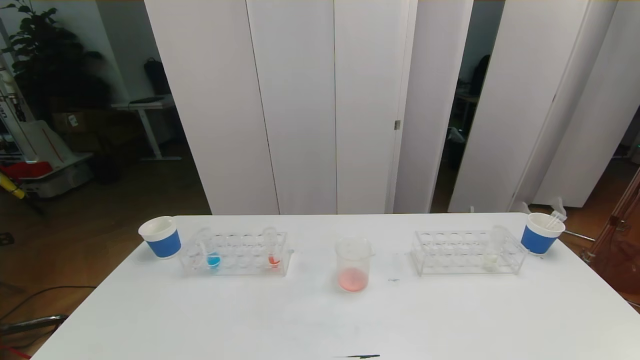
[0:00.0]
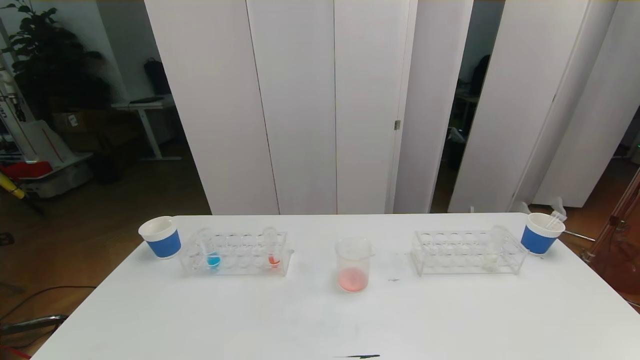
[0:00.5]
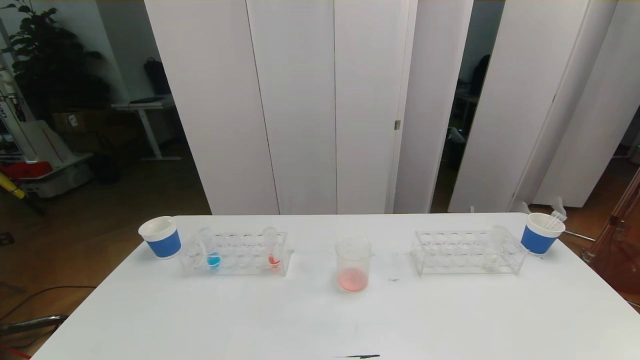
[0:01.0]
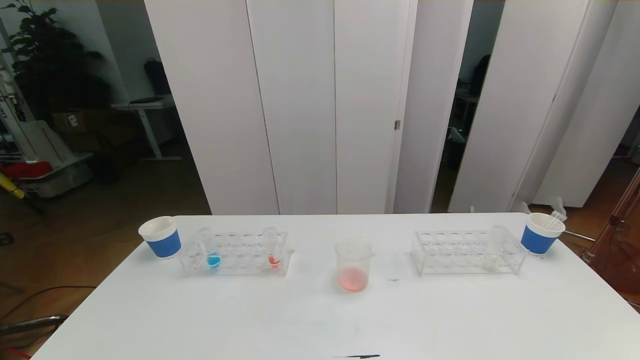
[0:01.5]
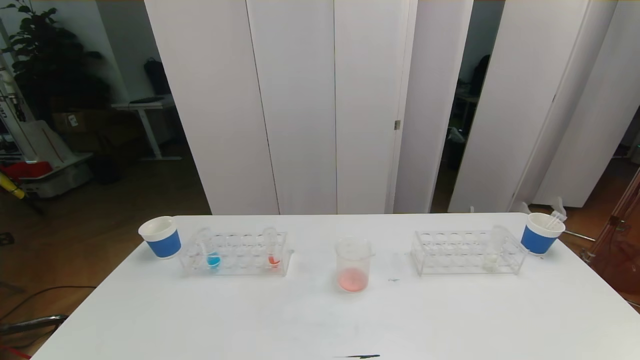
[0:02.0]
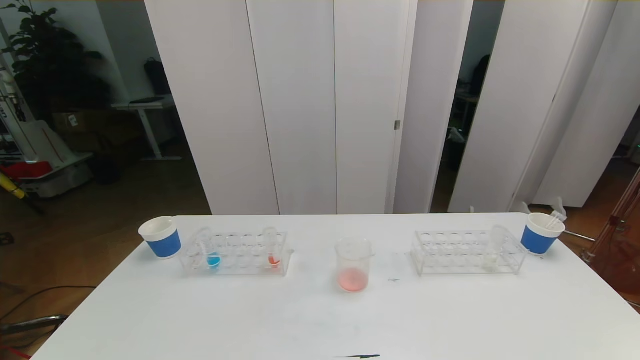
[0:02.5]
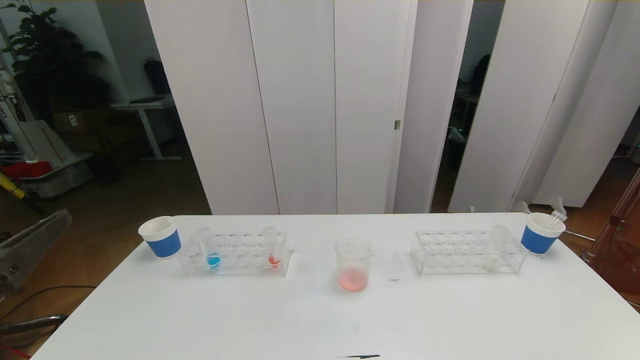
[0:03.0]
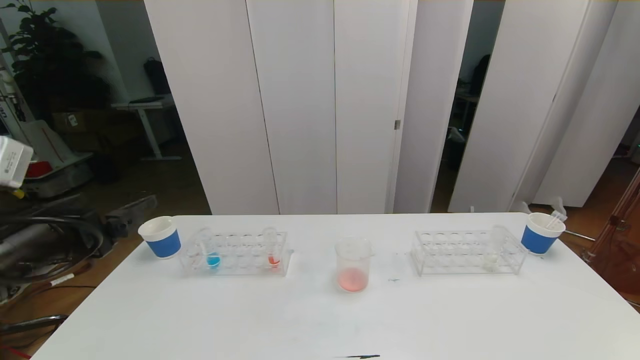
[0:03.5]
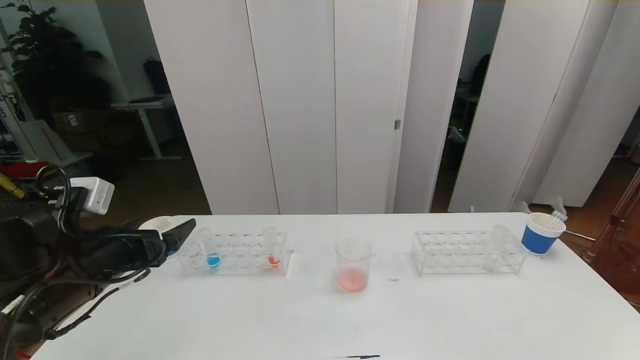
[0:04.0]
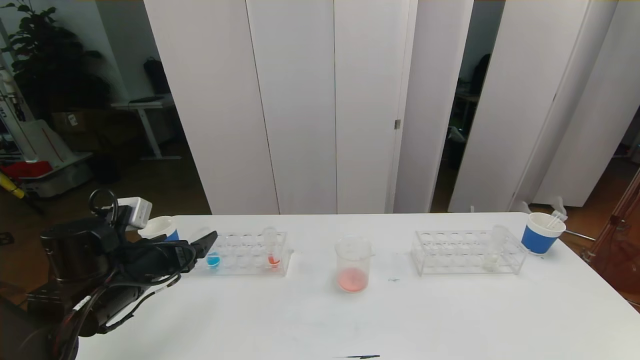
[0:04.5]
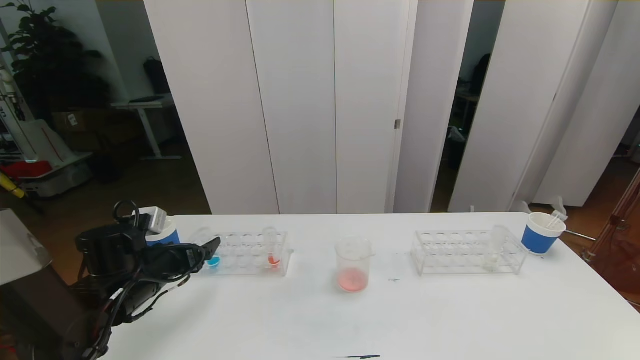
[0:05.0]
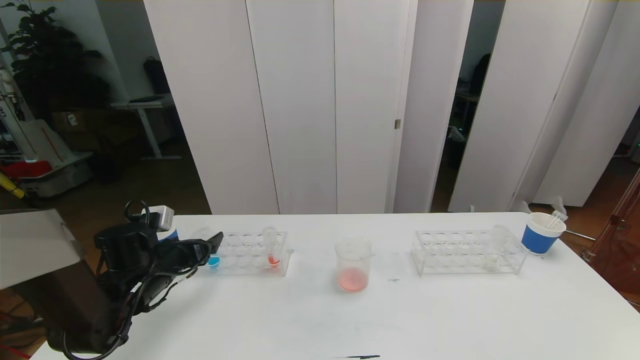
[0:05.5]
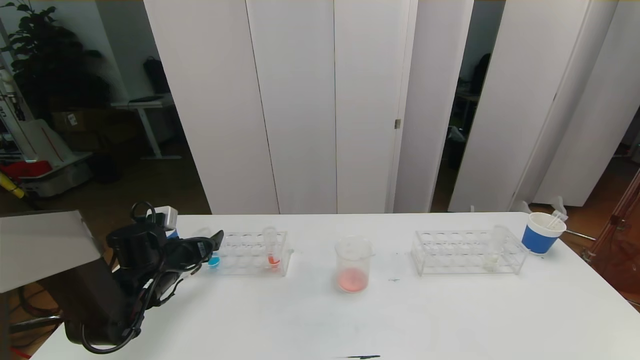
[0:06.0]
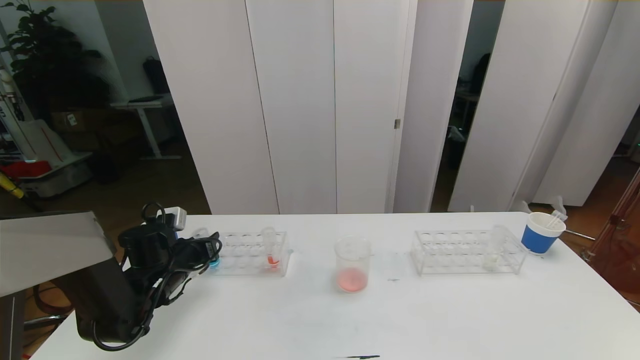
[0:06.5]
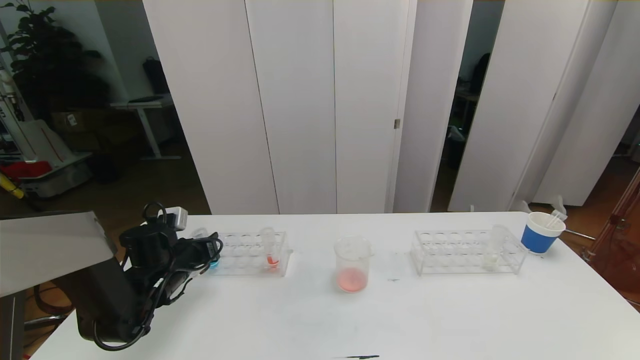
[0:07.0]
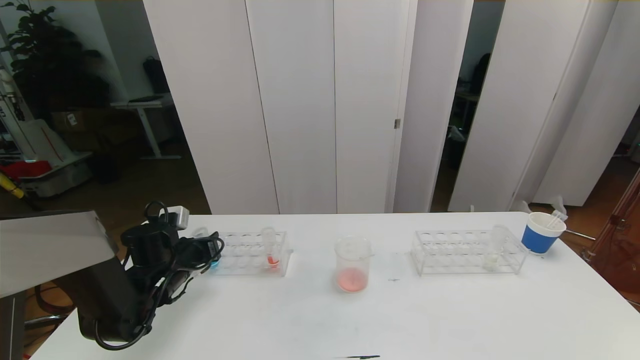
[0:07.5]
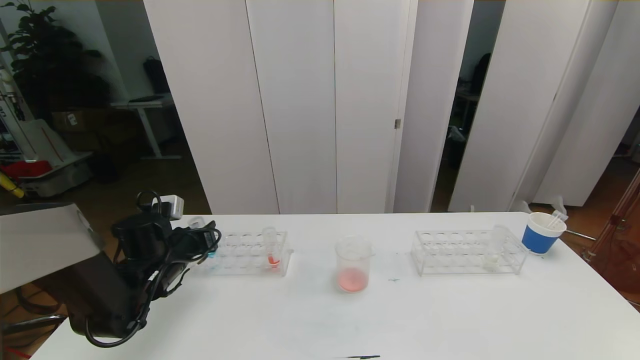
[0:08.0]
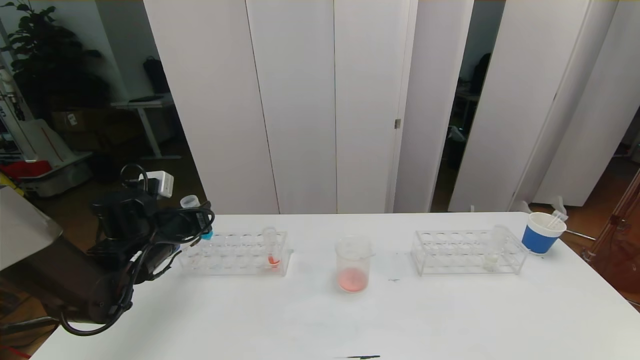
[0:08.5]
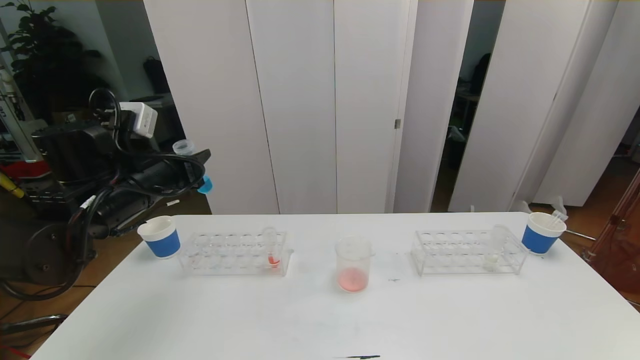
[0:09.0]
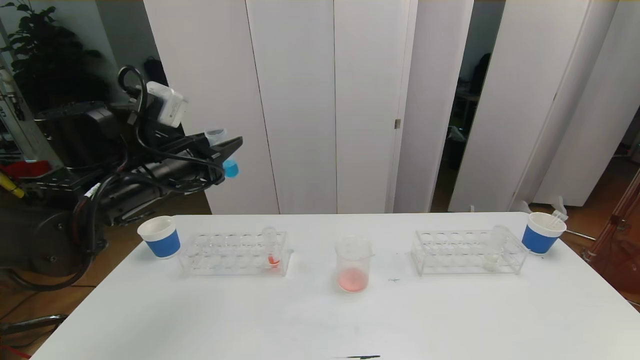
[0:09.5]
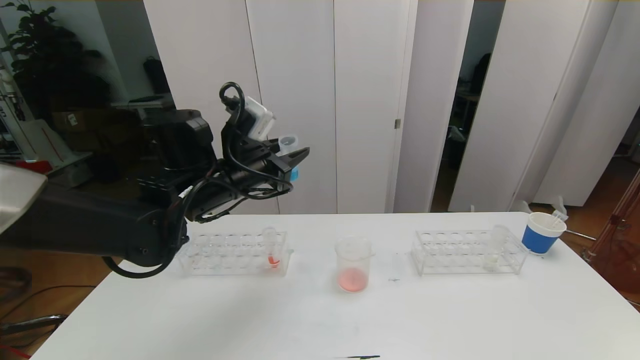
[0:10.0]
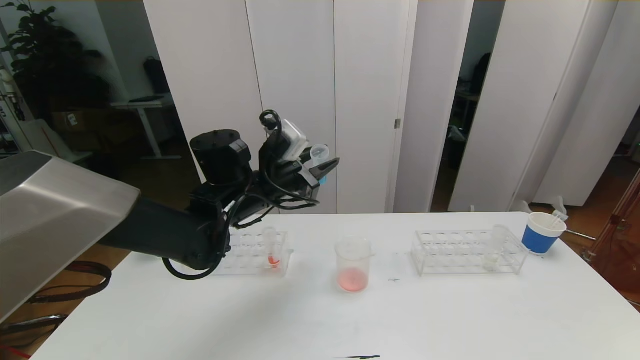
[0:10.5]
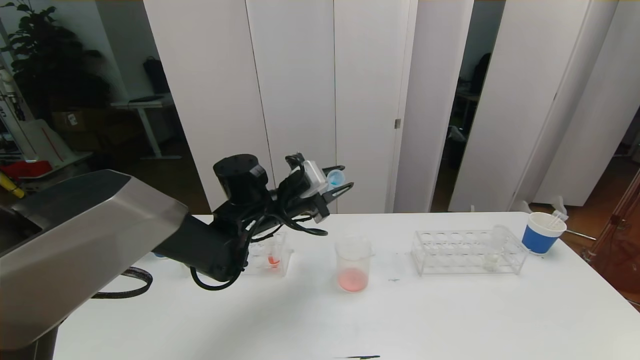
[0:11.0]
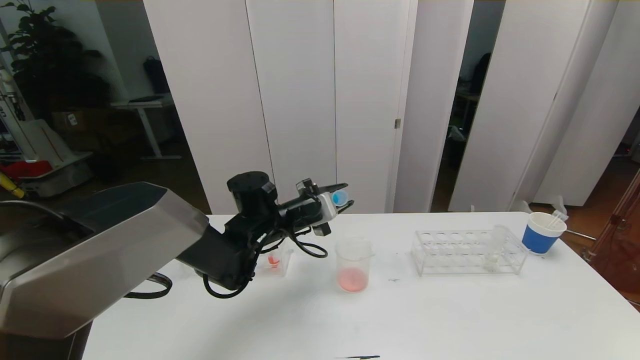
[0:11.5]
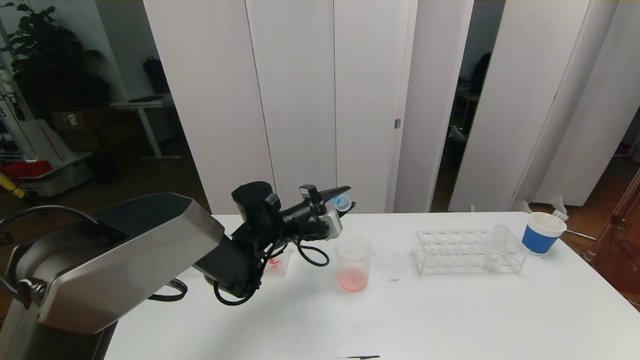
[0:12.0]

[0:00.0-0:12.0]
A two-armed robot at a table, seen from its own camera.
Task of the whole recording: pick up the test tube with red pigment the test tube with blue pigment and the test tube with white pigment by grippers and pour them into the beaker.
0:02.0 to 0:04.0: The left gripper travels forward by about 25 cm.
0:04.0 to 0:06.0: The left gripper is displaced downward and forward by approximately 15 cm.
0:06.0 to 0:08.0: The left gripper closes up.
0:08.0 to 0:10.0: The left gripper travels upward and to the right by roughly 20 cm.
0:10.0 to 0:12.0: The left gripper heads downward and to the right, covering about 15 cm.

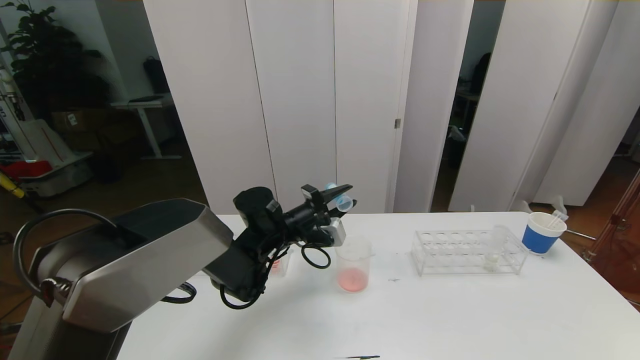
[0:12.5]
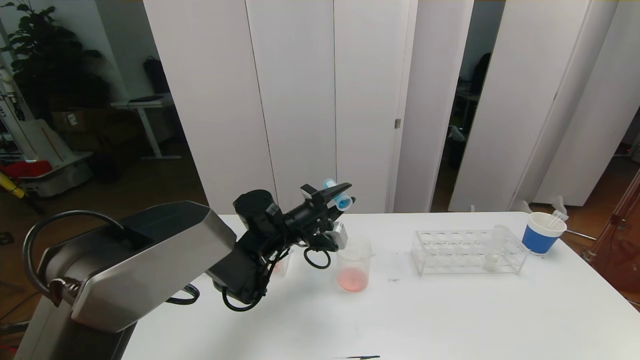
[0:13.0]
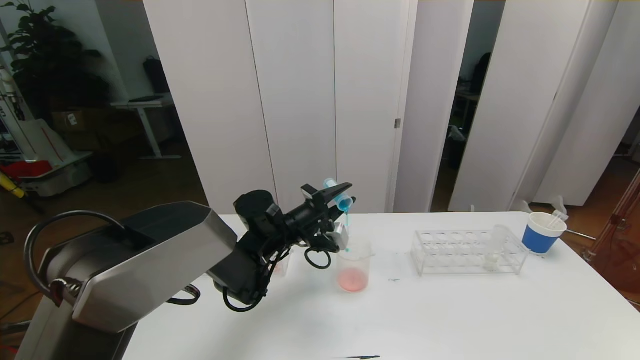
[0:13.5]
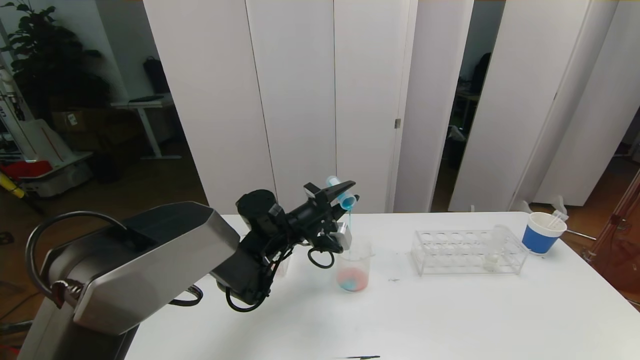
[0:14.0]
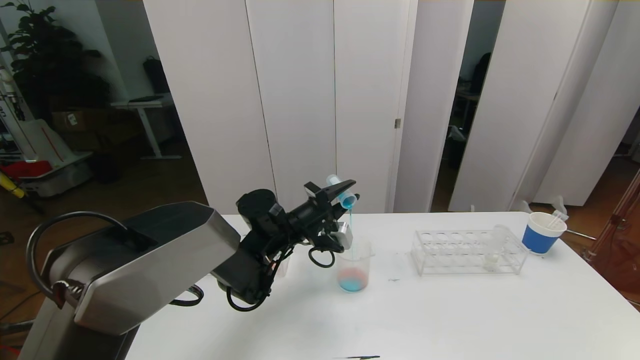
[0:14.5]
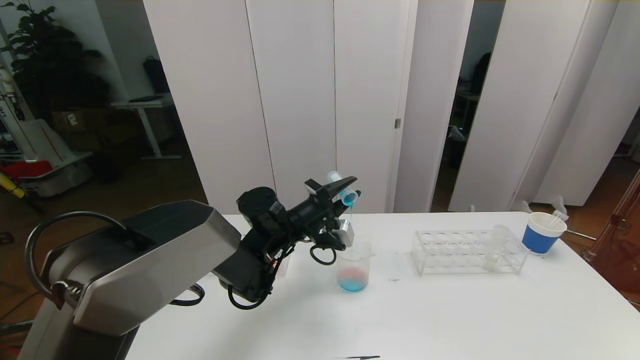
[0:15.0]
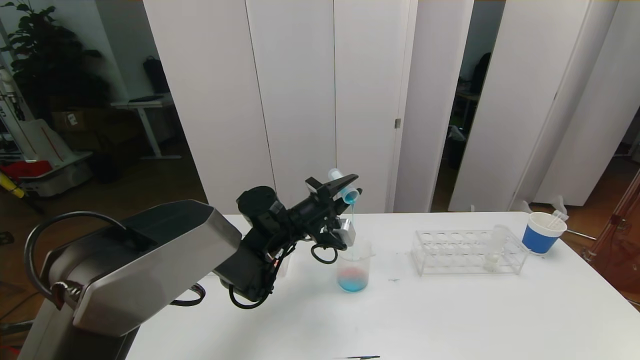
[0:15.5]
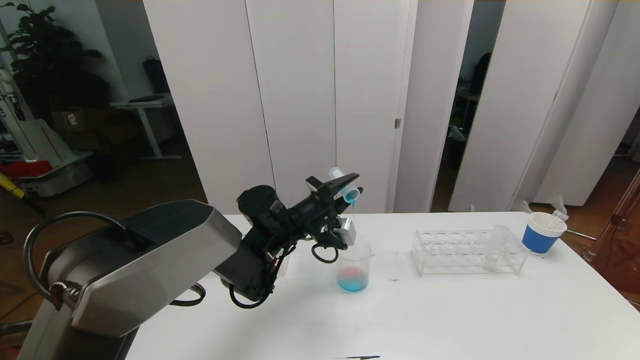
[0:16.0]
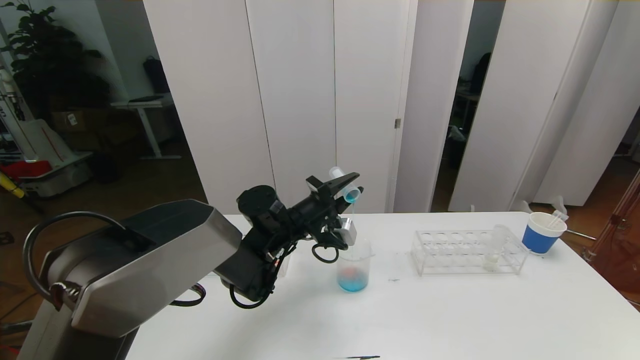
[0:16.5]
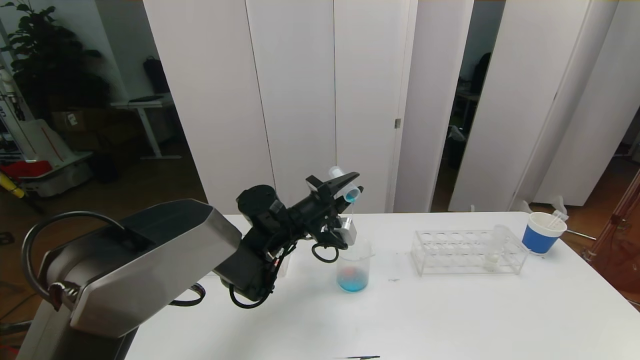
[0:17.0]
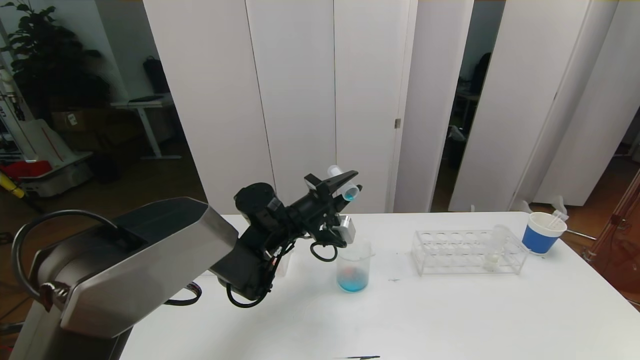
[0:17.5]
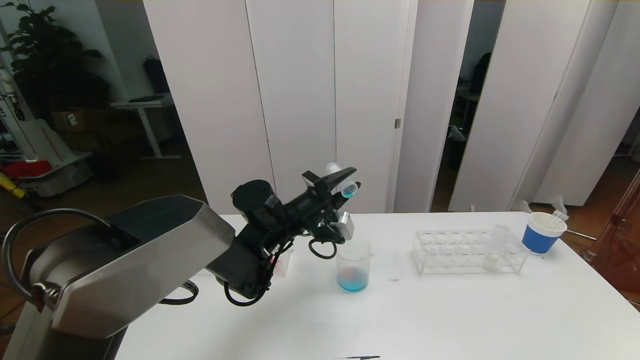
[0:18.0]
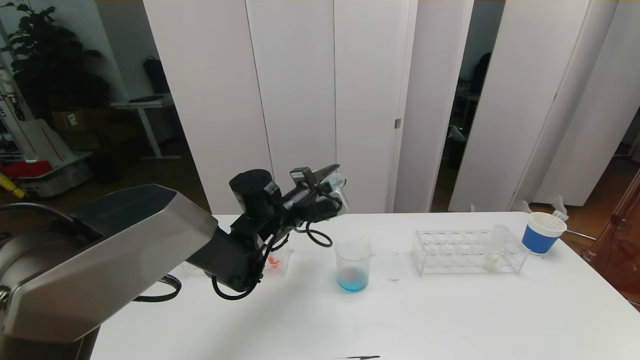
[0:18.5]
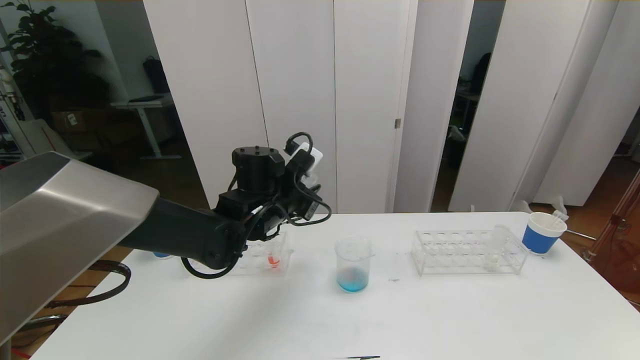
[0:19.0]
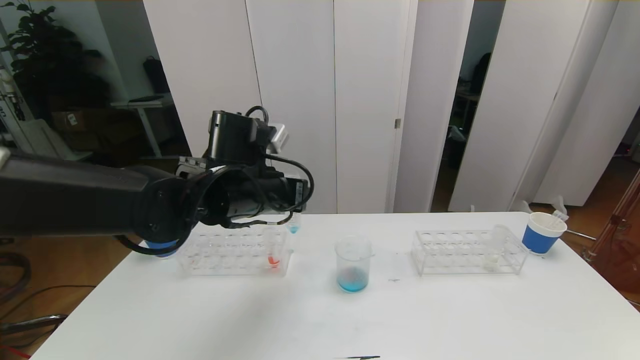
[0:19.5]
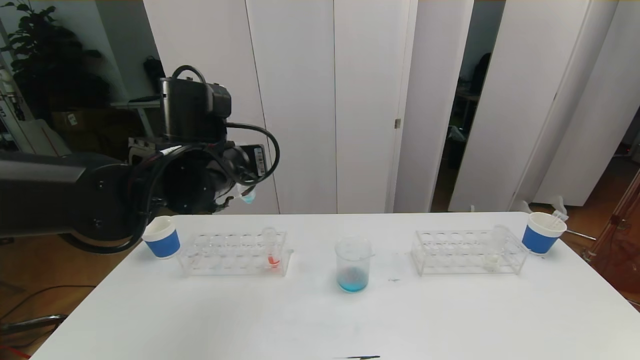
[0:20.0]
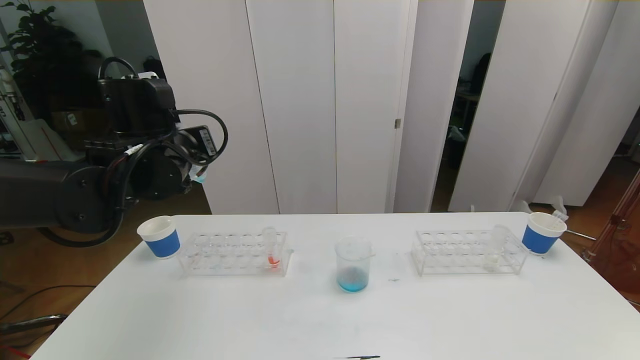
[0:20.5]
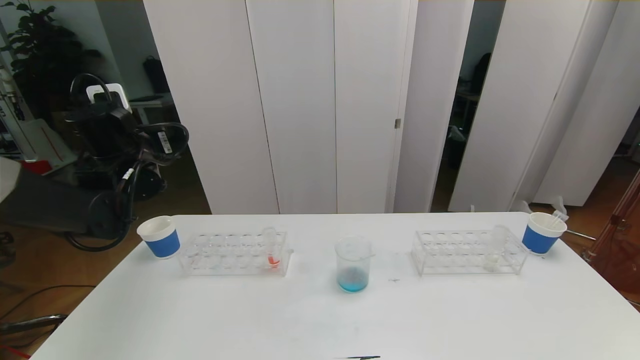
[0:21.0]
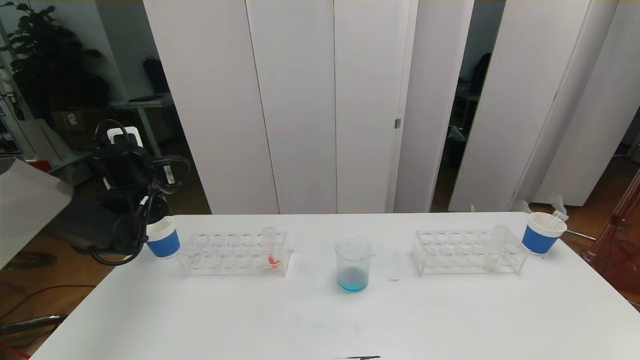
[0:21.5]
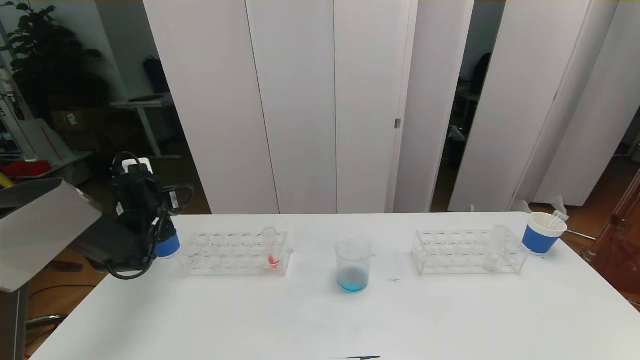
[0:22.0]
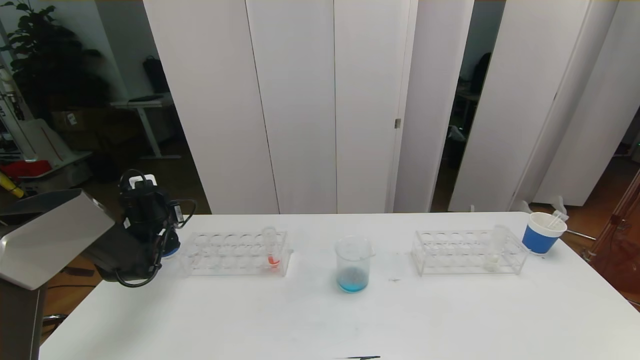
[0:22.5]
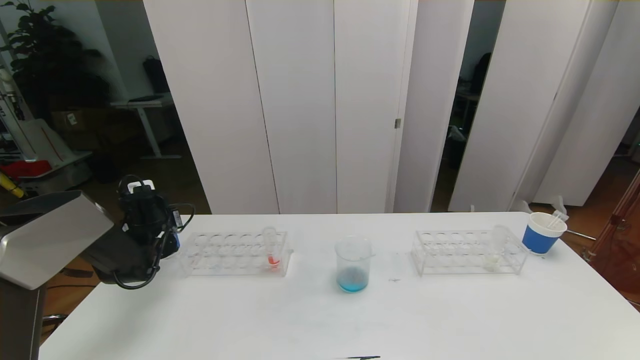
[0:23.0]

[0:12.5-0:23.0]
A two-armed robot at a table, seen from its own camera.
Task of the whole recording: pick up the test tube with red pigment the test tube with blue pigment and the test tube with white pigment by grippers and pour them into the beaker.
0:12.5 to 0:14.5: The grippers stay close to where they were, moving slightly.
0:14.5 to 0:16.5: Both grippers stay about where they are.
0:16.5 to 0:19.0: The left gripper shifts about 5 cm upward.
0:19.0 to 0:21.0: The left gripper goes approximately 20 cm to the left.
0:21.0 to 0:23.0: The left gripper travels downward by approximately 15 cm.
